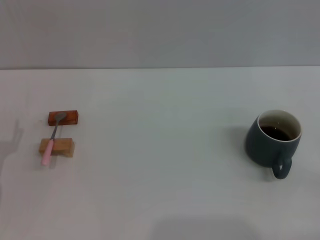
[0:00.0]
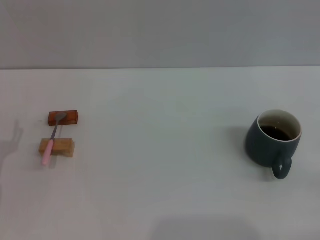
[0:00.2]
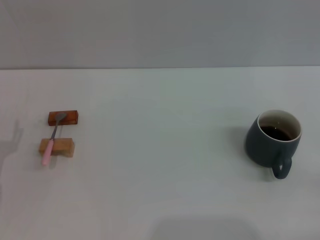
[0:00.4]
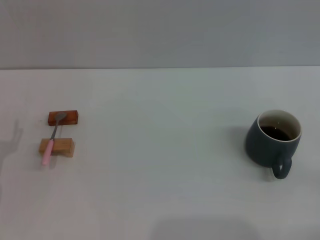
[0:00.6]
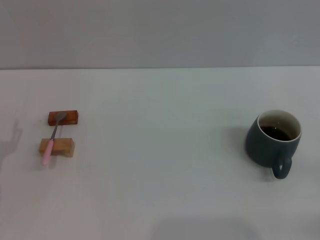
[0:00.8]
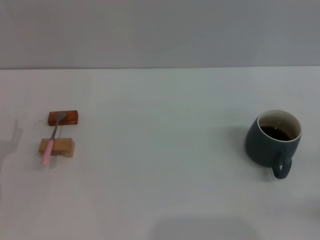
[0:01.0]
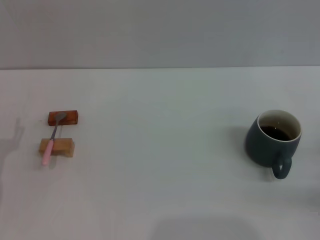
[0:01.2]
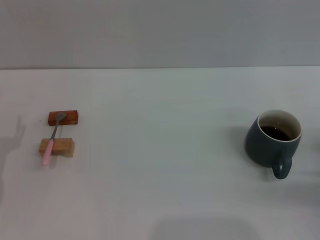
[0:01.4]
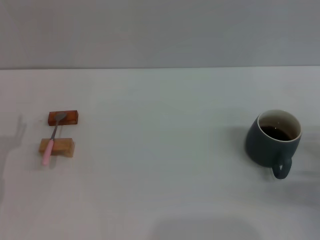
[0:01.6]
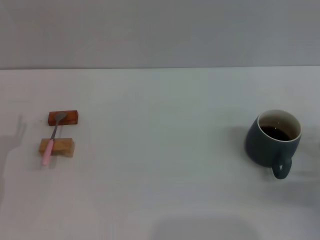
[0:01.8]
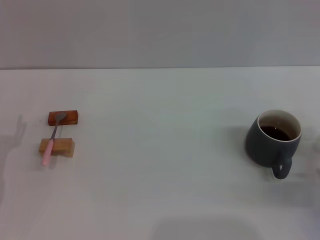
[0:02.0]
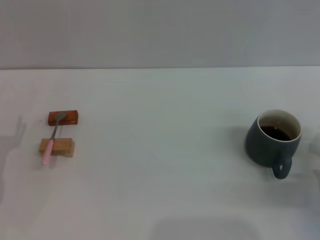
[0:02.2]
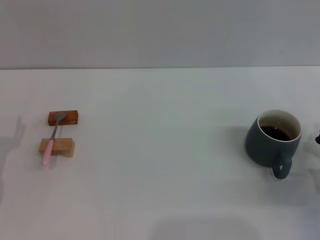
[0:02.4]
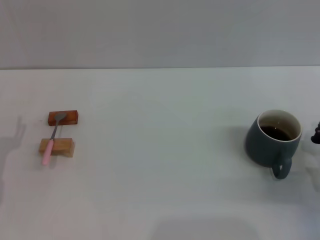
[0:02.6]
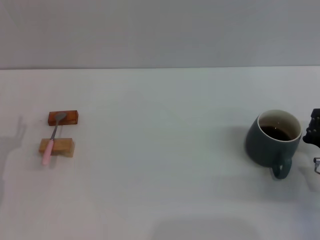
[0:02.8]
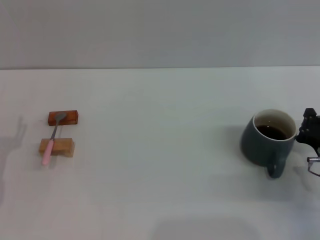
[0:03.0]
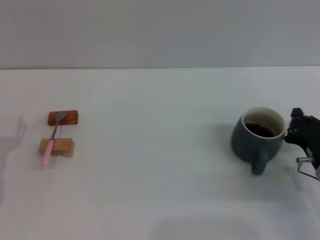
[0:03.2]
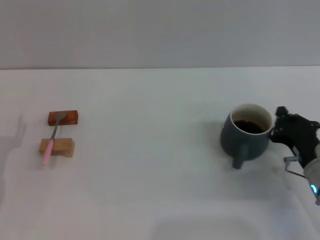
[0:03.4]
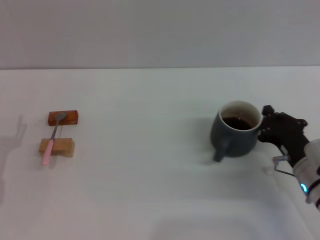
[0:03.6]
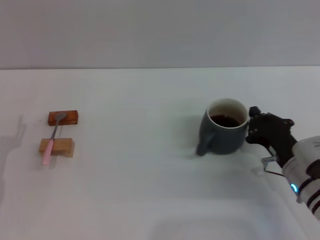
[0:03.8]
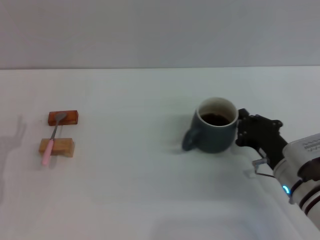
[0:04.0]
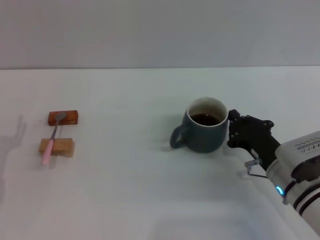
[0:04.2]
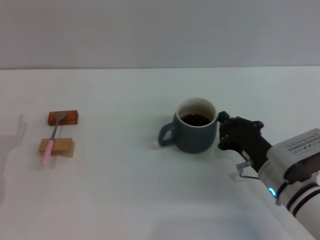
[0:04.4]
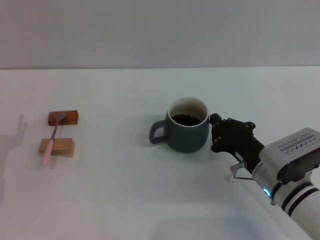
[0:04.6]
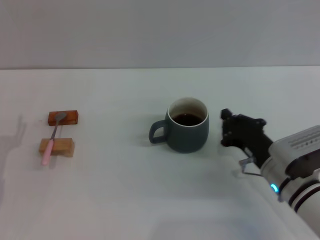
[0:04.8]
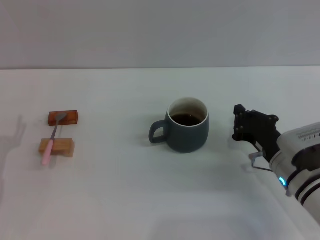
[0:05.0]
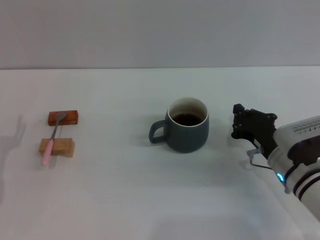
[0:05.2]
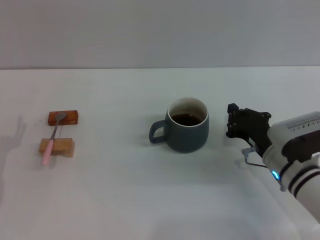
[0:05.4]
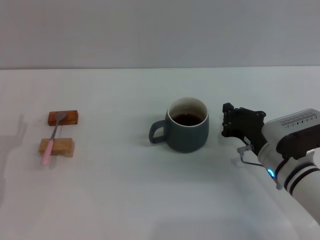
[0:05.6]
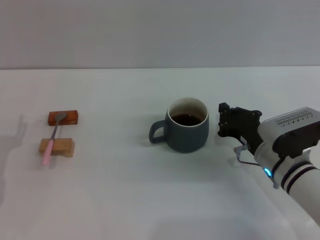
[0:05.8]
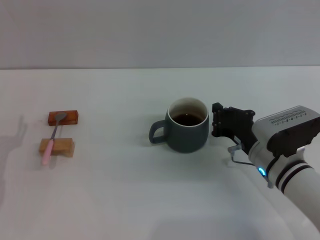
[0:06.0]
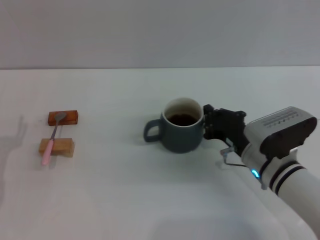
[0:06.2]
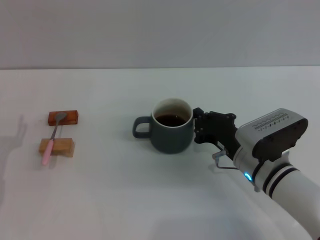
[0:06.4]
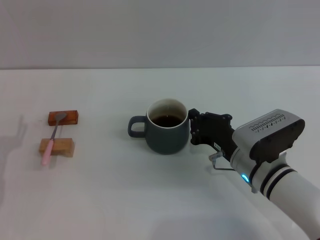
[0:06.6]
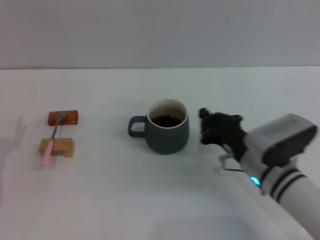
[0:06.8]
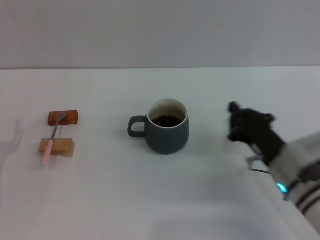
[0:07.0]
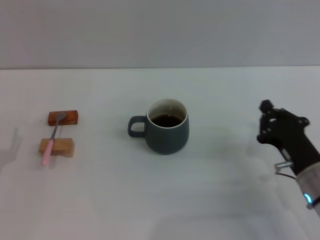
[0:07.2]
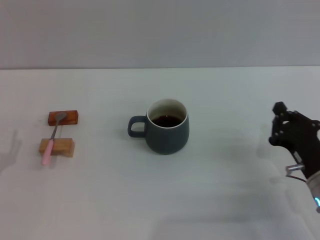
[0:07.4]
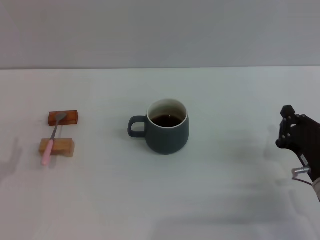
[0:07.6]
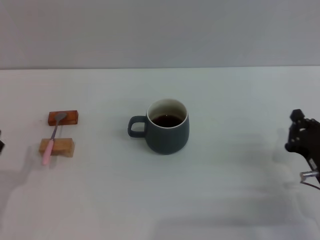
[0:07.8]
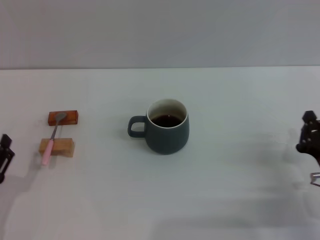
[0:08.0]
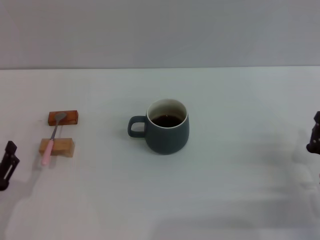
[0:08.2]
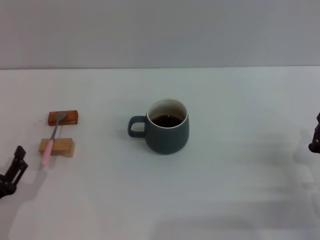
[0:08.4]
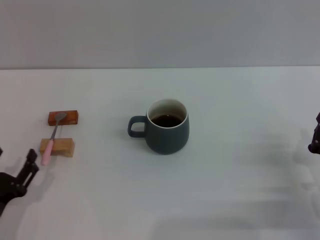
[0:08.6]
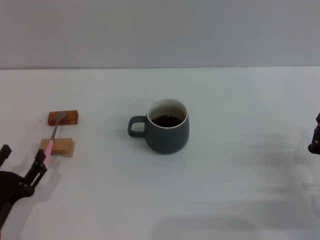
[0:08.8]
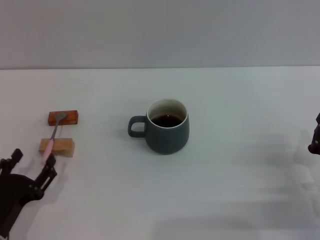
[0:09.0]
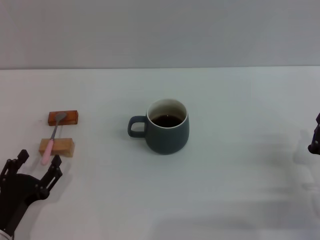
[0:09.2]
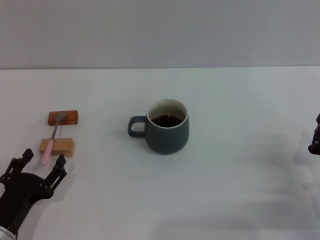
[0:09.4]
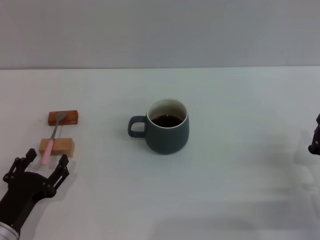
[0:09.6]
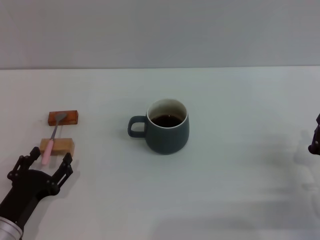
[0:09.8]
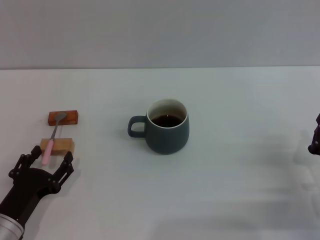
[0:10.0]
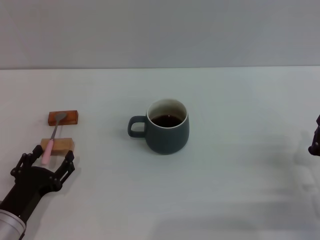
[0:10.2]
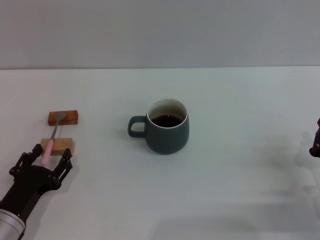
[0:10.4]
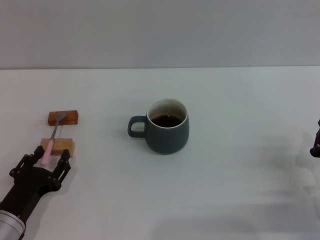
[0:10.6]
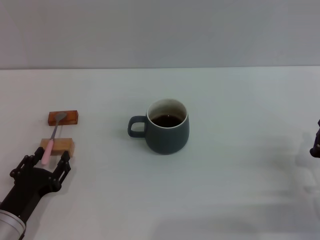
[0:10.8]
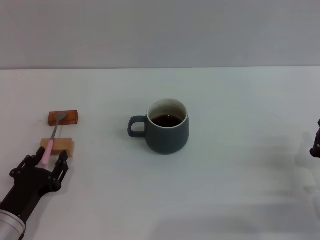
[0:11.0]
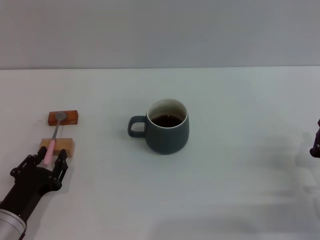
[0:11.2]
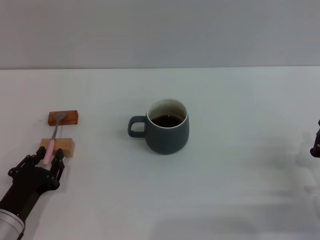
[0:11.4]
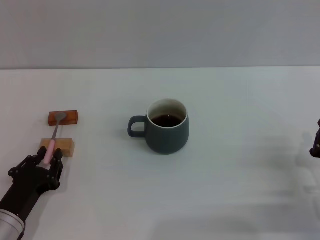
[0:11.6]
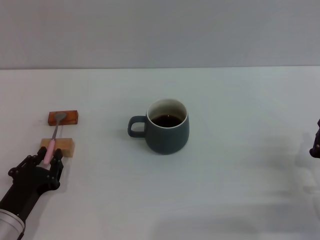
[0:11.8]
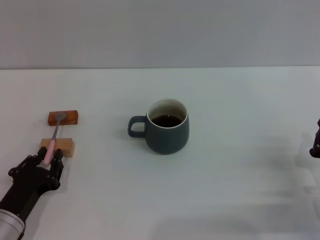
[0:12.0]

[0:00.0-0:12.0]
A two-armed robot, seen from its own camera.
Task of the whole recording: Move the grey cup to the center, lift the pink spoon, stir it three times in the cup, and put the spoon into the cup.
Step, 0:00.0 to 0:06.8: Move the cup with coffee to the center of view with the right gripper.
0:00.0 to 0:01.6: The right gripper moves forward, some 10 cm.
0:01.6 to 0:03.0: The grippers make only small movements.
0:03.0 to 0:04.4: The right gripper shifts approximately 10 cm to the left.
0:04.4 to 0:06.0: The grippers stay close to where they were, moving slightly.
0:06.0 to 0:07.6: The left gripper heads backward, covering some 5 cm. Meanwhile the right gripper is displaced to the right and backward by roughly 10 cm.
0:07.6 to 0:09.0: The left gripper moves some 5 cm.
0:09.0 to 0:10.4: There are only small adjustments of the grippers.
0:10.4 to 0:12.0: The left gripper closes.

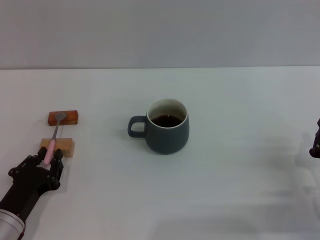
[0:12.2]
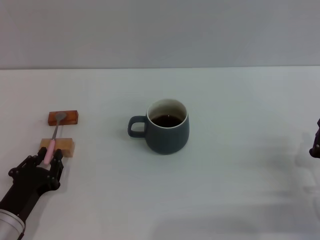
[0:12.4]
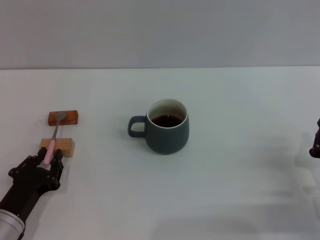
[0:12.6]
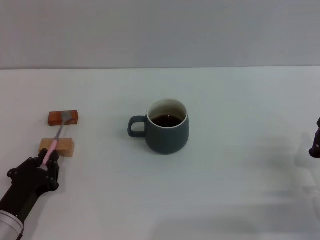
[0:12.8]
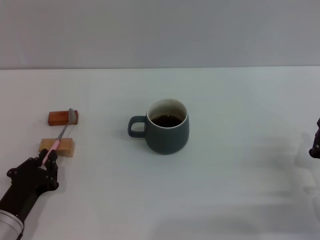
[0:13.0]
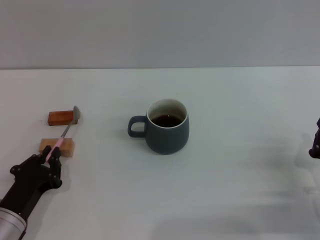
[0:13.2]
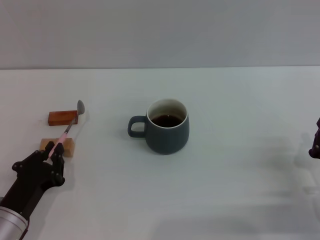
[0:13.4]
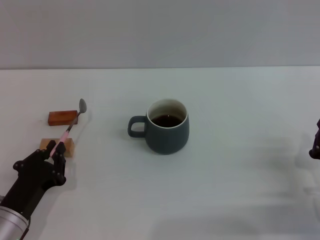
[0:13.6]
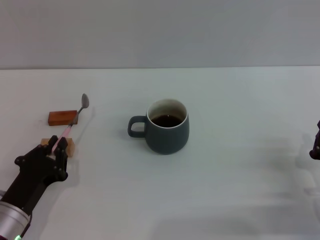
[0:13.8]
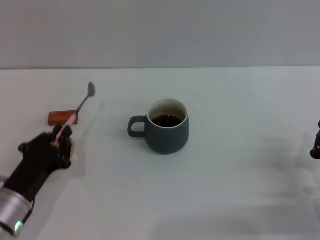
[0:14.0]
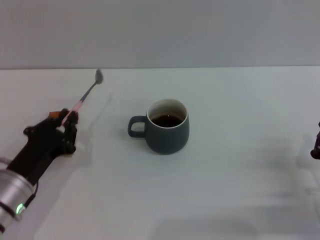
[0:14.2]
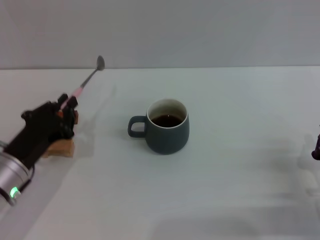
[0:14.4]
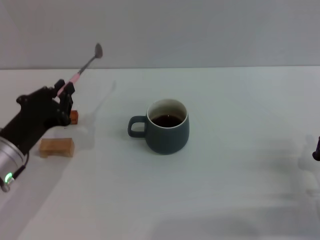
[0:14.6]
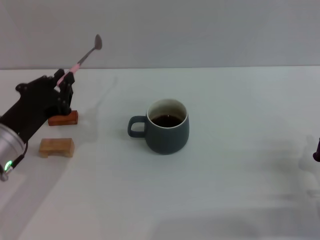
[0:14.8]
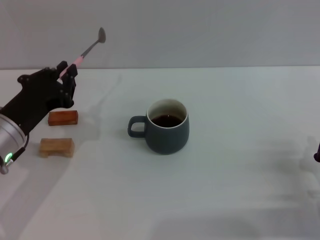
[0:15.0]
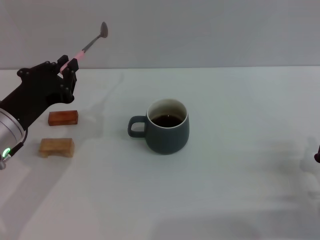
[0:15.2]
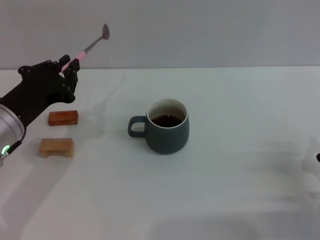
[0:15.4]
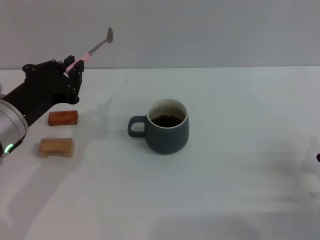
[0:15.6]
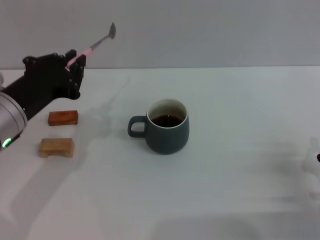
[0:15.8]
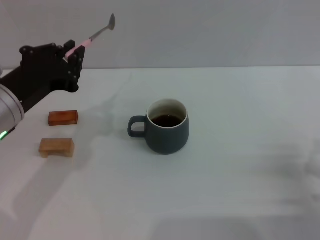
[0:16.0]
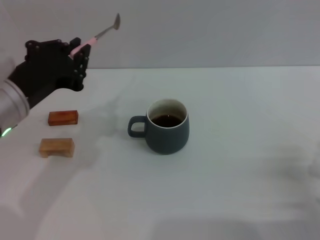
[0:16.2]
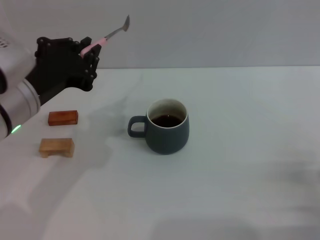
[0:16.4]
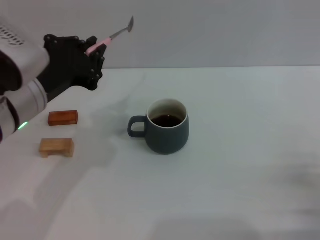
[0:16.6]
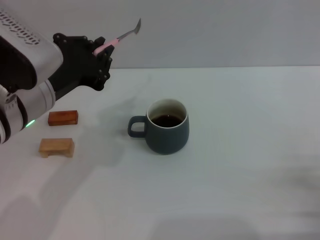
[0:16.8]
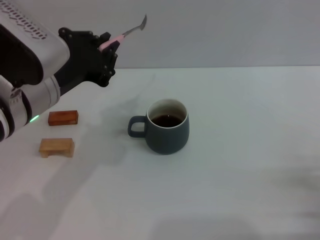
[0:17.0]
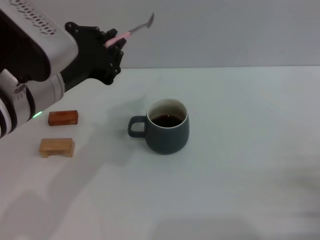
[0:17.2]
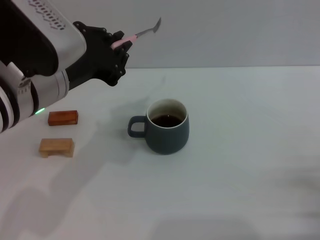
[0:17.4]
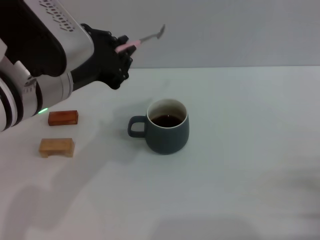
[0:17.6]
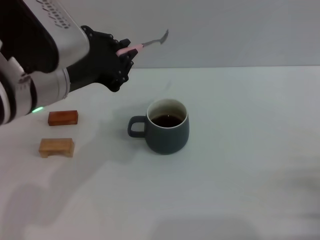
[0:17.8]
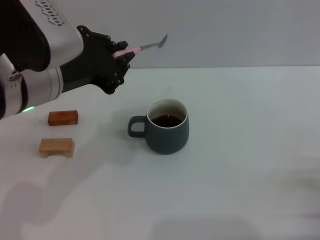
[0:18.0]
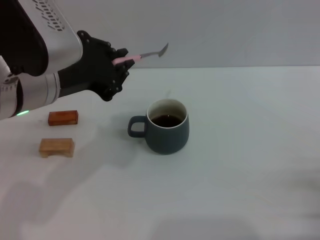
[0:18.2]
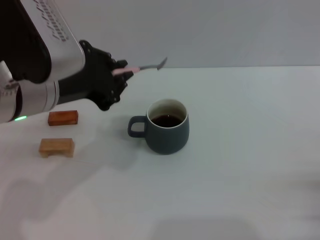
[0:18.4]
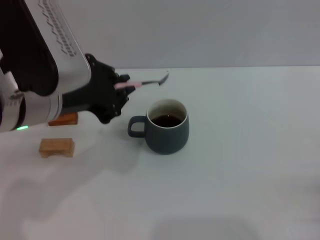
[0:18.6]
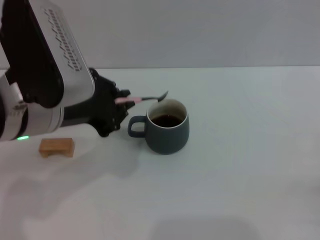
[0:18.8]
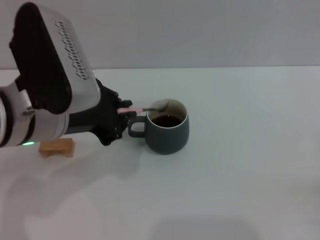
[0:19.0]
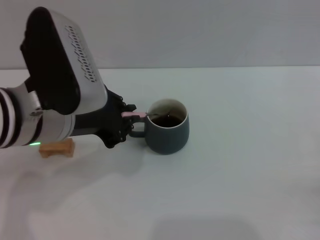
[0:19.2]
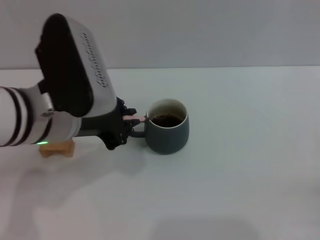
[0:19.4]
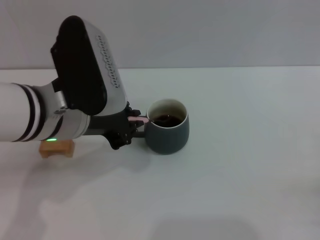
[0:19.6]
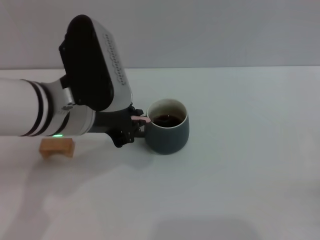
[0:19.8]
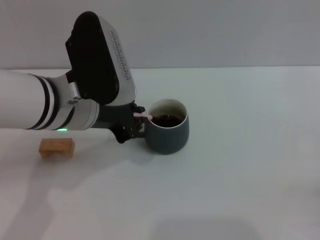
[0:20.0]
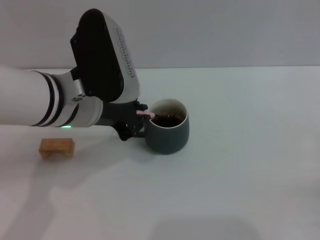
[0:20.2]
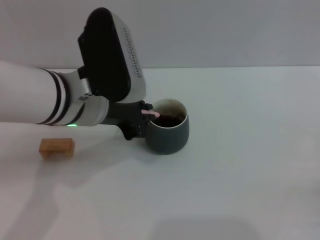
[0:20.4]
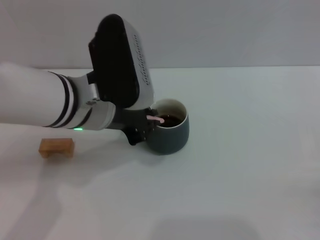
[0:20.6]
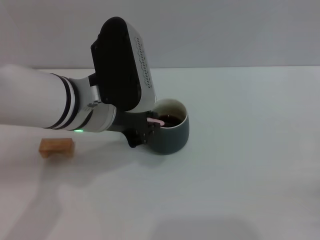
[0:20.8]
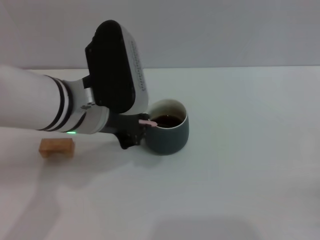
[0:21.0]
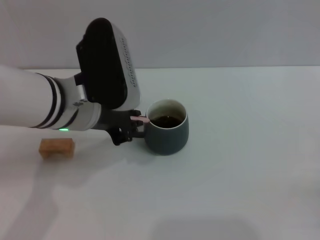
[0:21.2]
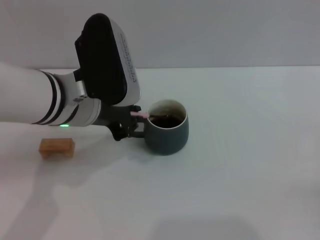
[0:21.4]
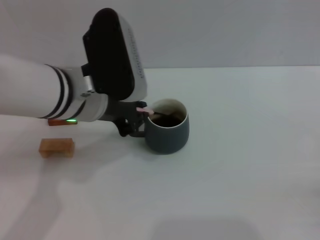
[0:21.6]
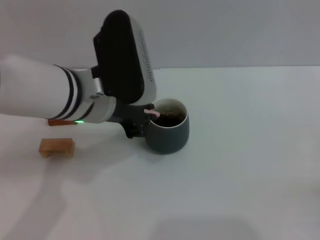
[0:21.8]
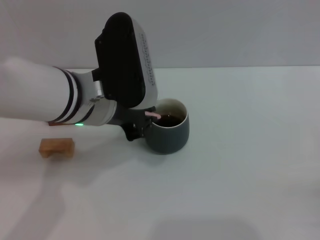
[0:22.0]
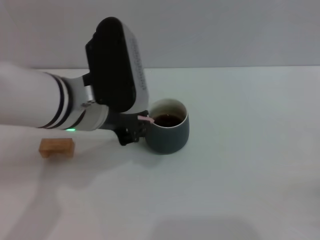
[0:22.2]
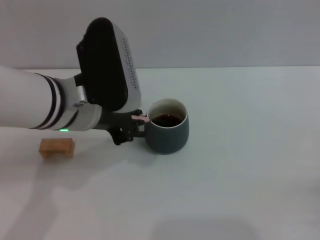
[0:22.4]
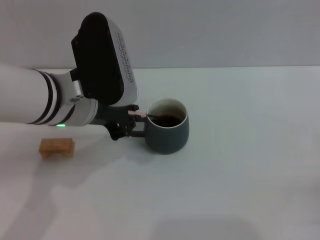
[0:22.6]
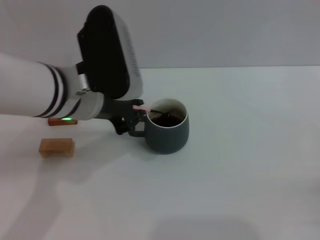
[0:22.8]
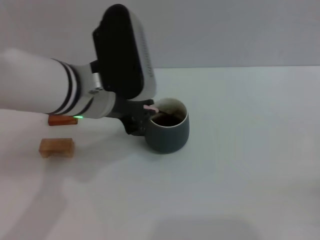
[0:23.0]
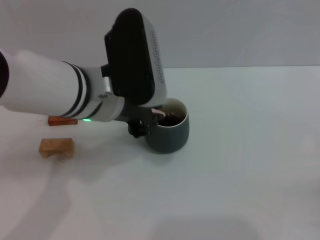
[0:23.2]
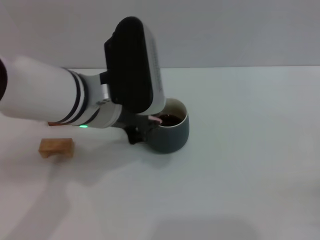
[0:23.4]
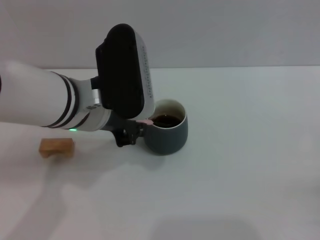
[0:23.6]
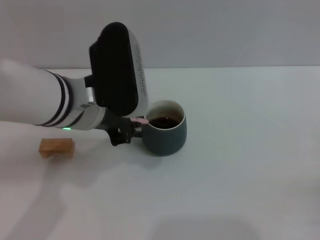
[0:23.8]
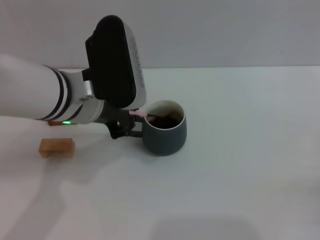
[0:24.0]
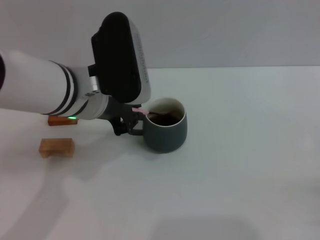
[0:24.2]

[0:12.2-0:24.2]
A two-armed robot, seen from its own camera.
Task of the whole recording: Move the grey cup to the center, lift the pink spoon, stir it three times in the cup, and put the spoon into the cup.
Step, 0:12.2 to 0:15.0: Pick up the spoon with the left gripper.
0:12.2 to 0:13.8: There are only small adjustments of the grippers.
0:13.8 to 0:15.2: The left gripper moves upward and forward, some 15 cm.
0:15.2 to 0:16.6: The left gripper is displaced upward and to the right by roughly 10 cm.
0:16.6 to 0:18.2: The grippers move only a little.
0:18.2 to 0:19.8: The left gripper changes place by some 5 cm.
0:19.8 to 0:24.2: There are only small adjustments of the grippers.
